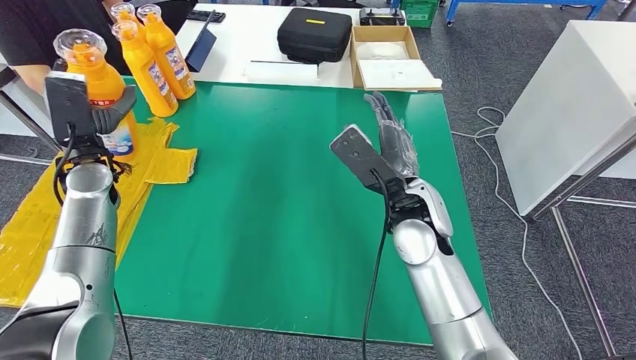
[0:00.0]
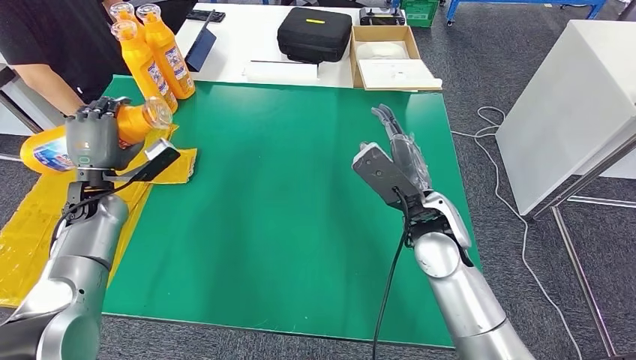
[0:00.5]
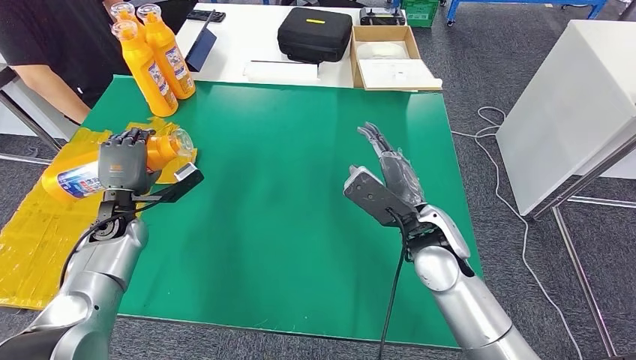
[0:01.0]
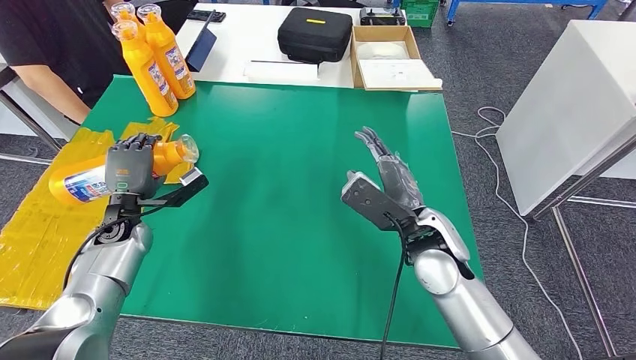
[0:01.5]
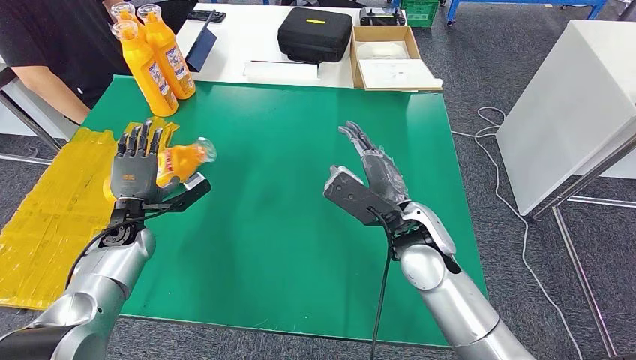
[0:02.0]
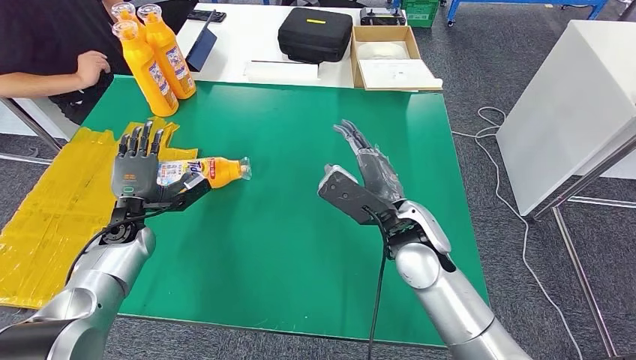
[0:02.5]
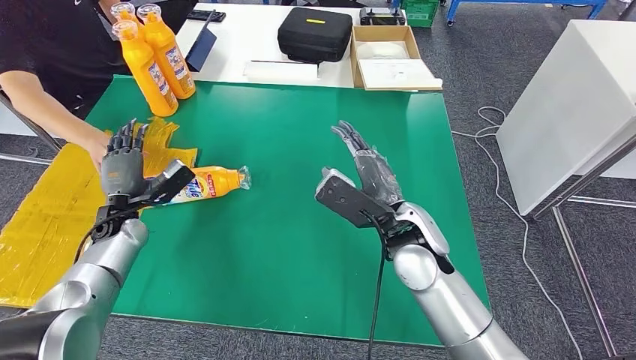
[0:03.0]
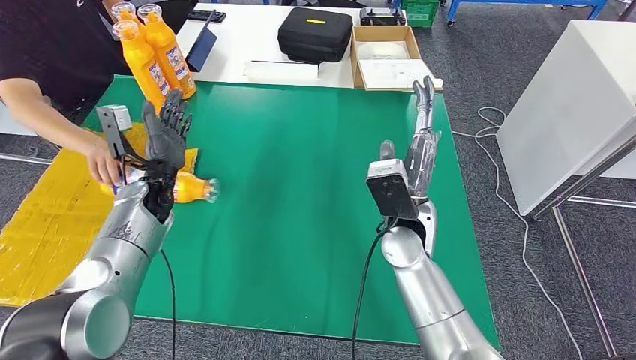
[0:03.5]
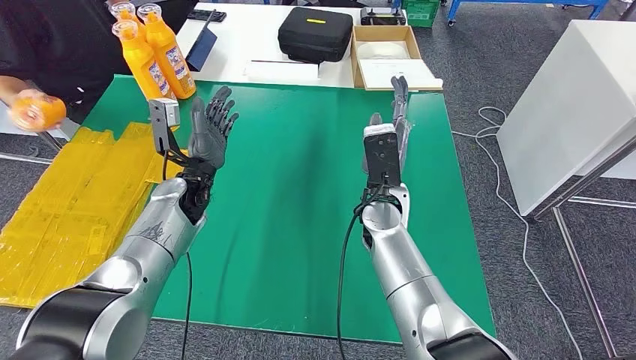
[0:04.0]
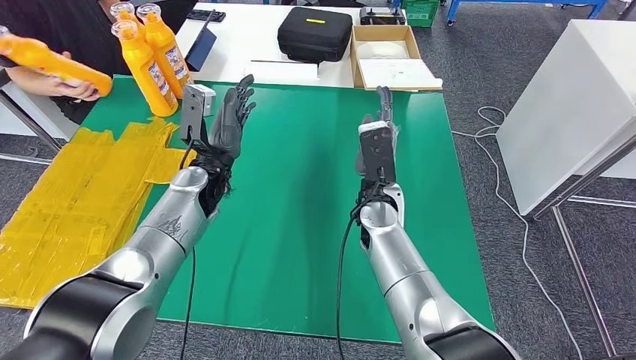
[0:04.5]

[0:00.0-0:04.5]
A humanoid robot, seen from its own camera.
Step, 0:00.0 to 0:04.5: Flip the fast-moving consumer goods bottle to the front side.
0:00.0 to 0:02.0: The left hand shifts some 15 cm downward.
